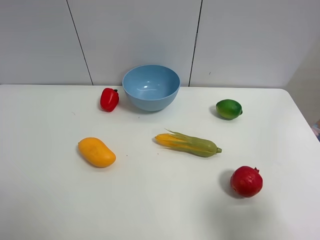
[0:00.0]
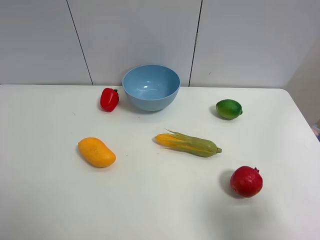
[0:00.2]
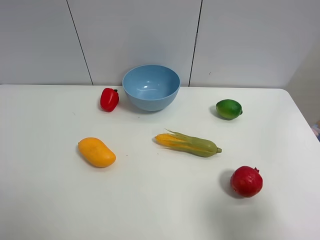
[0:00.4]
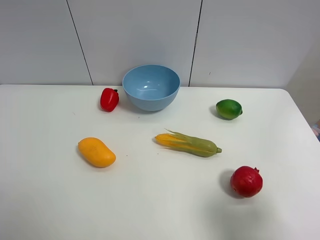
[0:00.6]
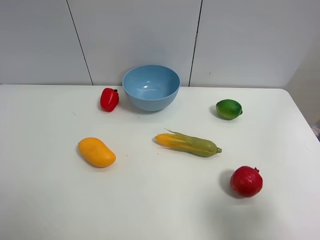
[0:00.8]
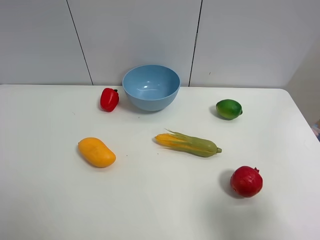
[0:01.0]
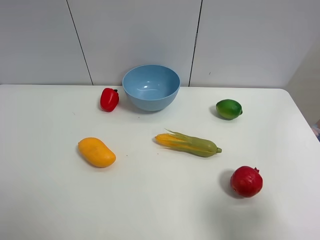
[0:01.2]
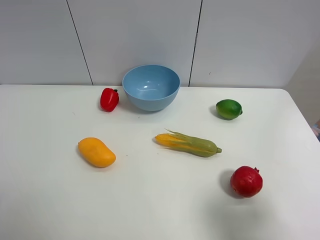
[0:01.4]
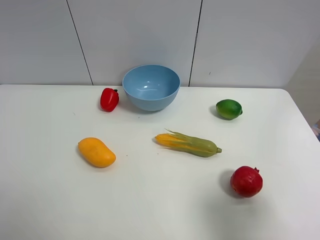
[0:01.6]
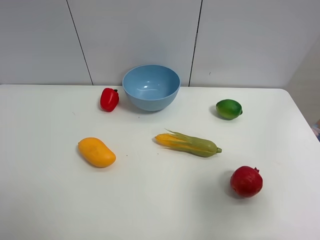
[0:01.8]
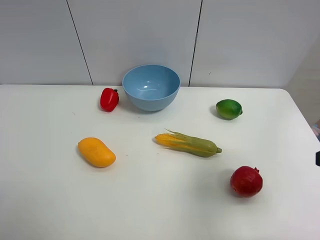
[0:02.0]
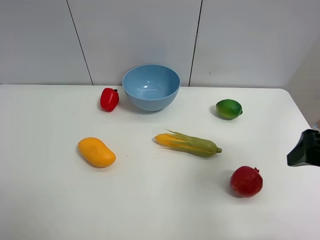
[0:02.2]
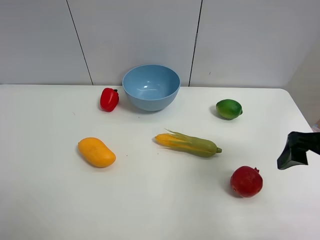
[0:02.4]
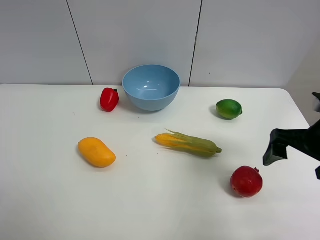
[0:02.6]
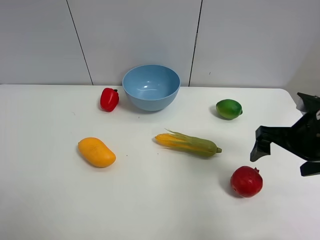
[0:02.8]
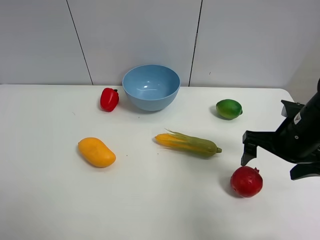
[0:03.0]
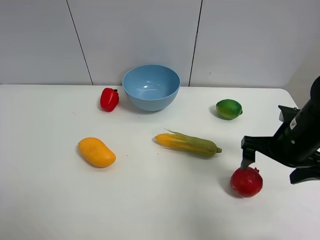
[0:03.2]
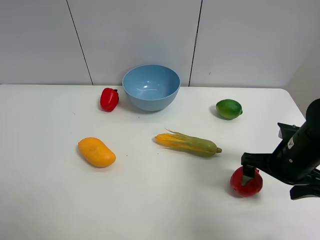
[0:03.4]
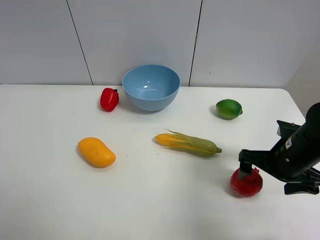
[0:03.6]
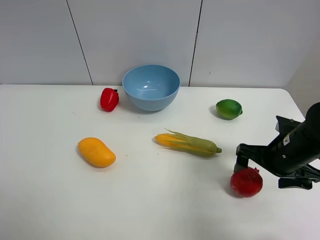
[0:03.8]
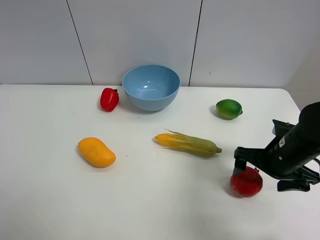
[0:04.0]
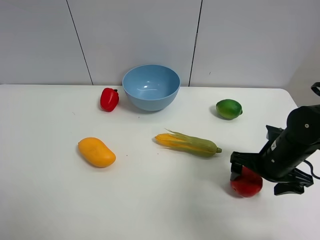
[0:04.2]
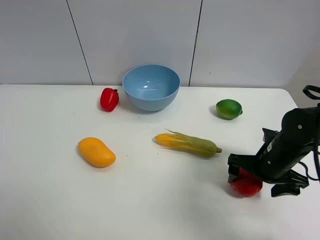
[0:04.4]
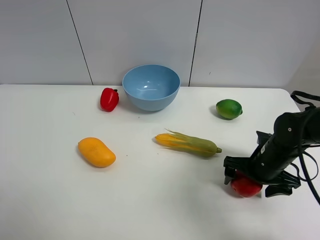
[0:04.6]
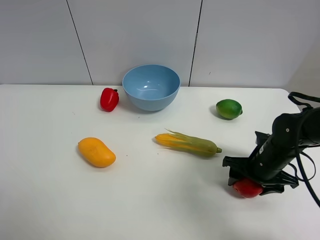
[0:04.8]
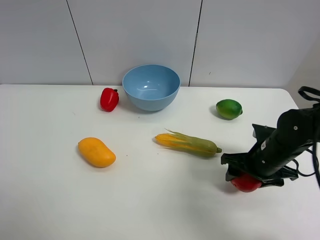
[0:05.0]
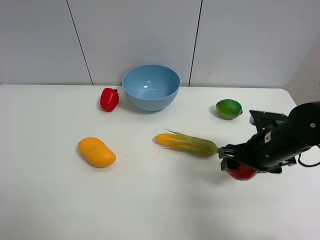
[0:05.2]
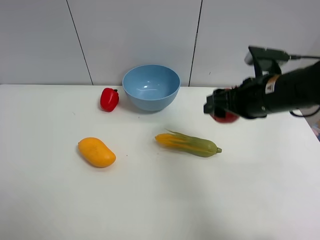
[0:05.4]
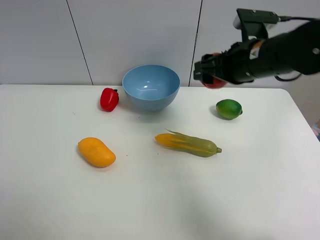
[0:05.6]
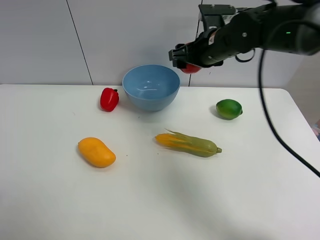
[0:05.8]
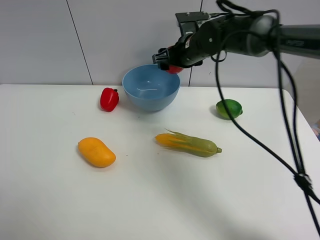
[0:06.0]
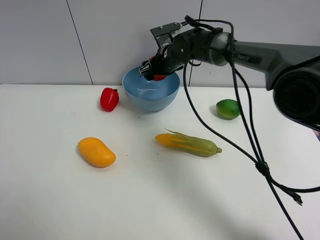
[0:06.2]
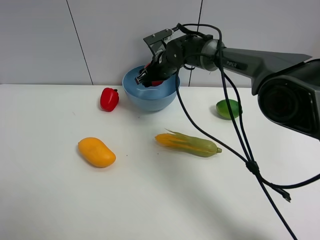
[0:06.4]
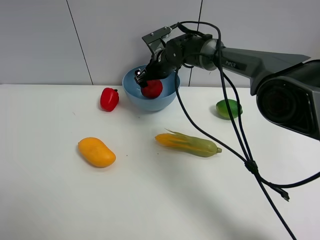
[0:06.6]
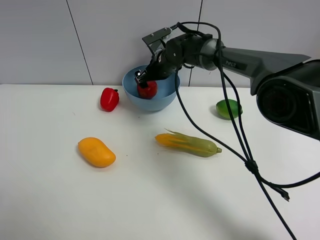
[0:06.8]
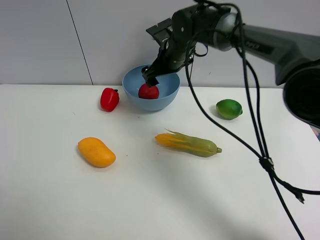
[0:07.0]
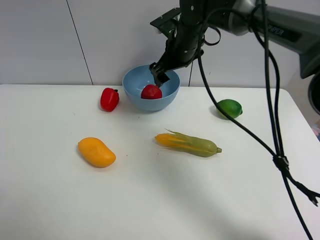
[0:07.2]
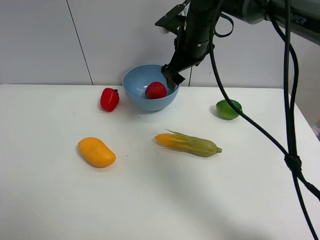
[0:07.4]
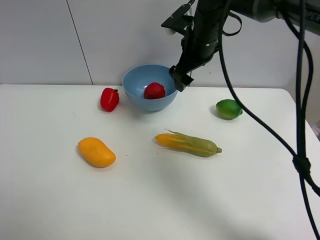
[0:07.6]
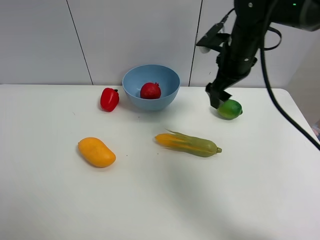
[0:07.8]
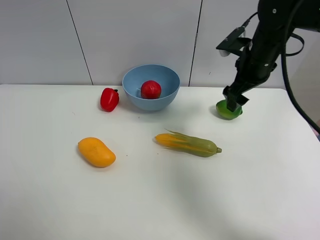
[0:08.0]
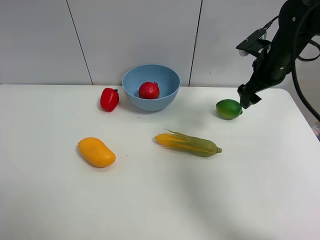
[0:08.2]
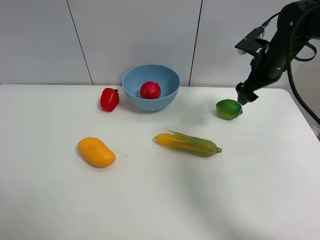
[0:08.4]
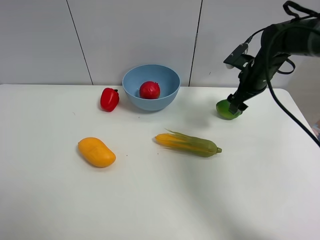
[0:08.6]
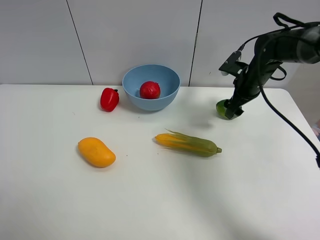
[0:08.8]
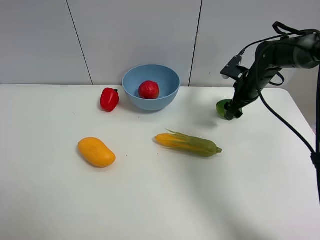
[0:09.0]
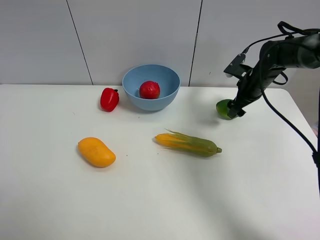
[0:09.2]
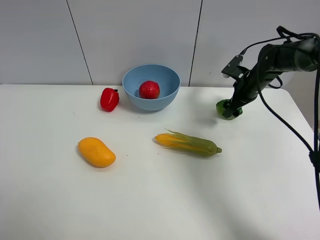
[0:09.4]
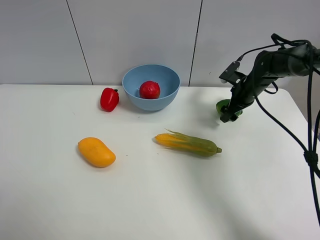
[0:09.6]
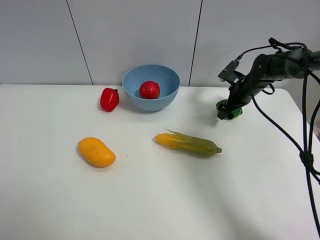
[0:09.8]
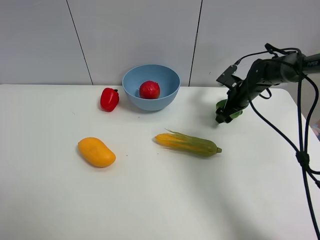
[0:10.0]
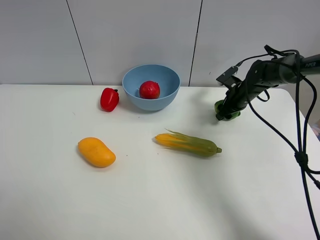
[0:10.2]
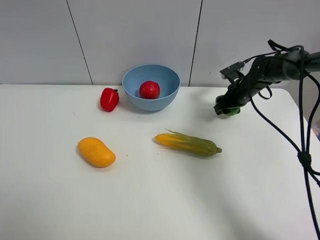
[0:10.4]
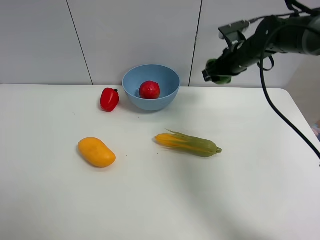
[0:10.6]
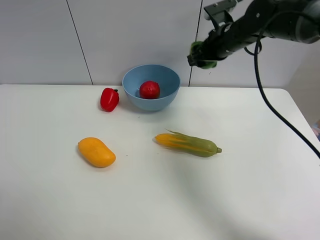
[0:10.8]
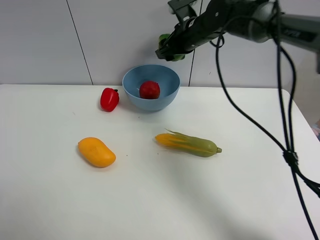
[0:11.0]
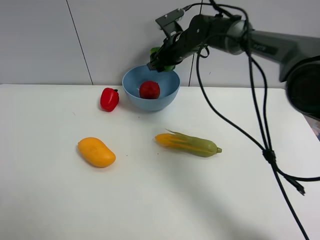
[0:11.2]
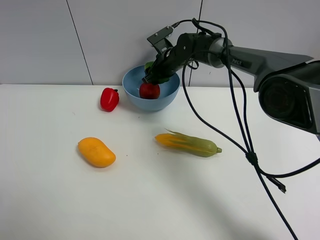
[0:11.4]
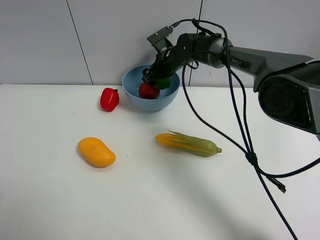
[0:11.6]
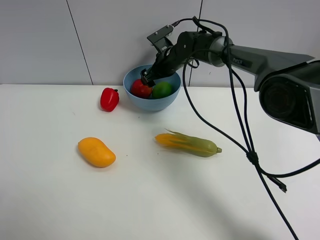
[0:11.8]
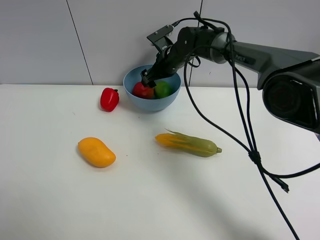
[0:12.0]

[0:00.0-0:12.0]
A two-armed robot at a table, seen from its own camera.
Task of the whole recording: Put the three fruits on the table into a bowl.
Step, 0:00.0 to 0:04.8: Grasp the pomegranate with right gripper.
Step, 0:05.0 to 0:07.0: Place the pomegranate in the blue bowl with right gripper.
Step, 0:07.2 to 0:10.2: Grasp the green lemon with right gripper.
0:01.6 to 0:03.0: The right gripper goes about 20 cm forward.
0:03.0 to 0:04.4: The right gripper travels downward by about 10 cm.
0:04.4 to 0:06.0: The right gripper moves forward, to the left and upward, some 30 cm, and closes its fingers.
0:06.0 to 0:07.6: The right gripper travels upward and backward by about 10 cm, and opens up.
0:07.6 to 0:09.0: The right gripper is displaced to the right and downward by roughly 20 cm.
0:09.0 to 0:10.4: The right gripper closes up.
0:10.4 to 0:12.0: The right gripper is displaced to the left by about 20 cm, and opens its fingers.

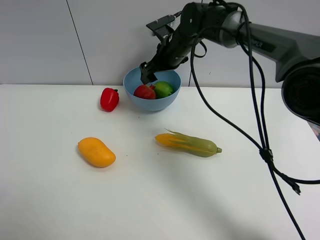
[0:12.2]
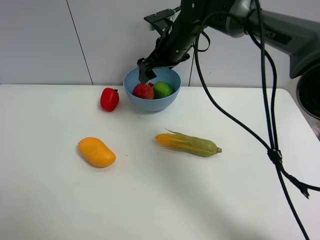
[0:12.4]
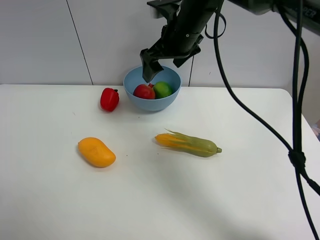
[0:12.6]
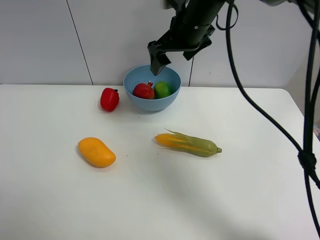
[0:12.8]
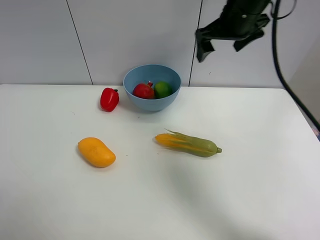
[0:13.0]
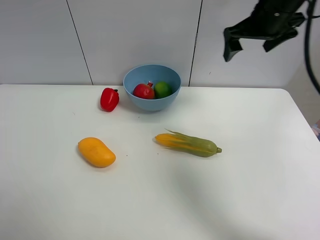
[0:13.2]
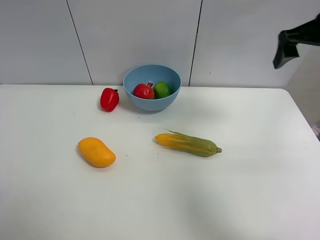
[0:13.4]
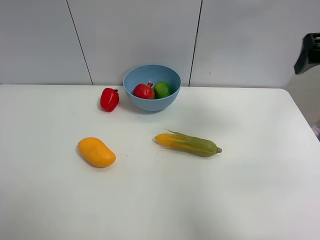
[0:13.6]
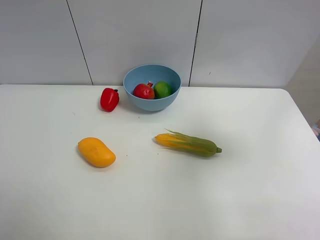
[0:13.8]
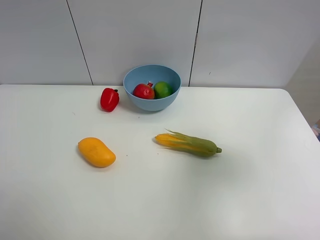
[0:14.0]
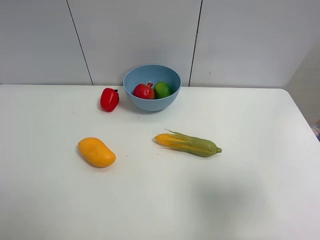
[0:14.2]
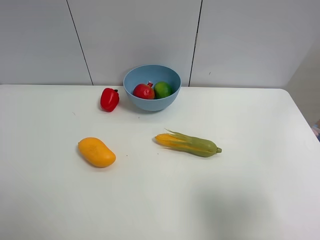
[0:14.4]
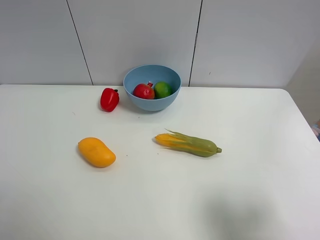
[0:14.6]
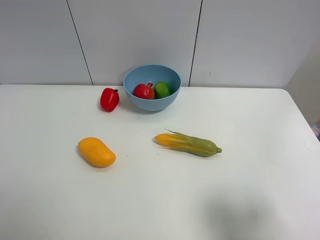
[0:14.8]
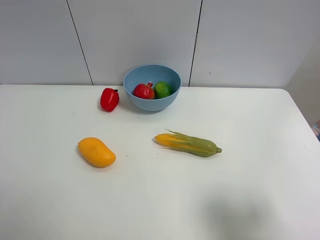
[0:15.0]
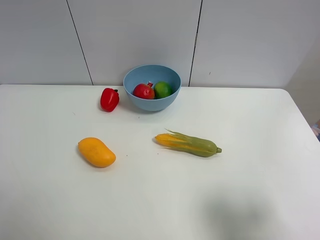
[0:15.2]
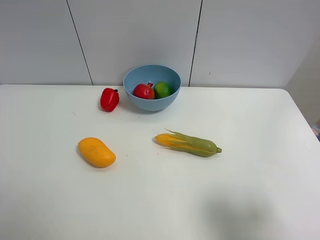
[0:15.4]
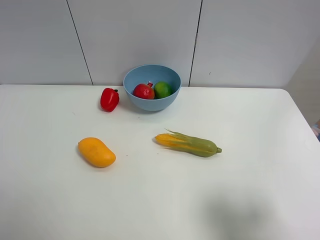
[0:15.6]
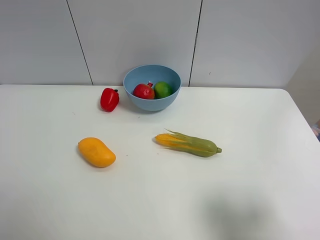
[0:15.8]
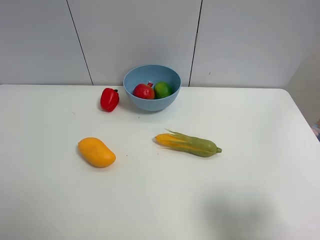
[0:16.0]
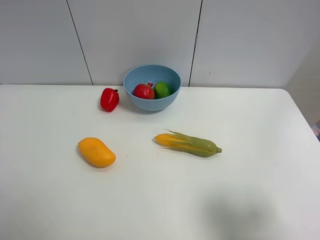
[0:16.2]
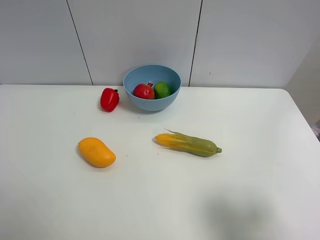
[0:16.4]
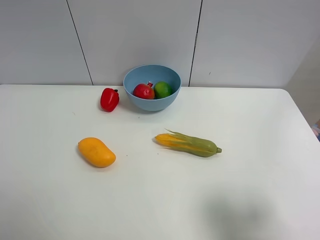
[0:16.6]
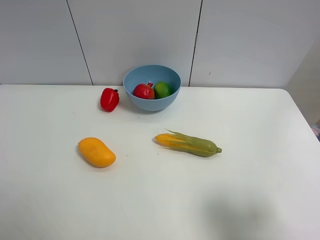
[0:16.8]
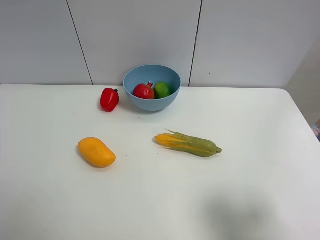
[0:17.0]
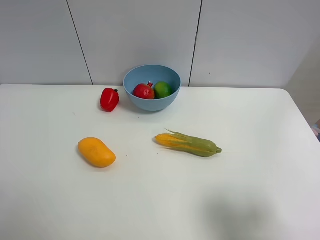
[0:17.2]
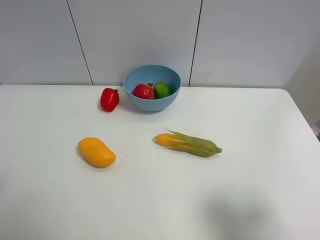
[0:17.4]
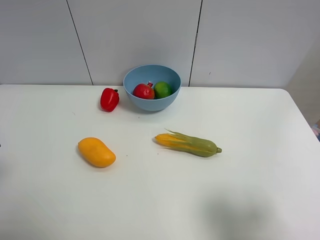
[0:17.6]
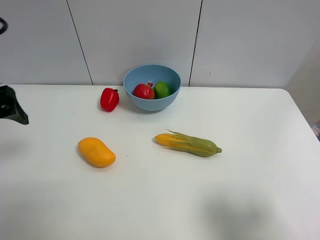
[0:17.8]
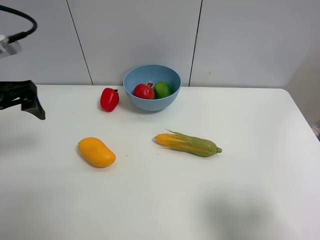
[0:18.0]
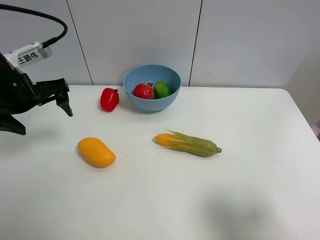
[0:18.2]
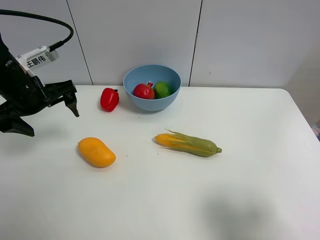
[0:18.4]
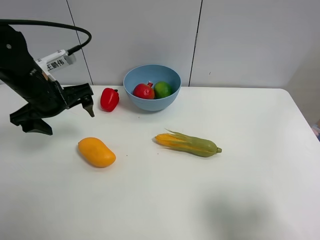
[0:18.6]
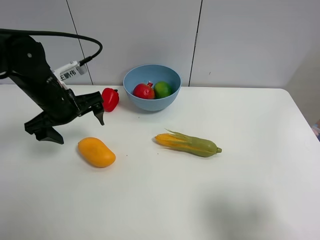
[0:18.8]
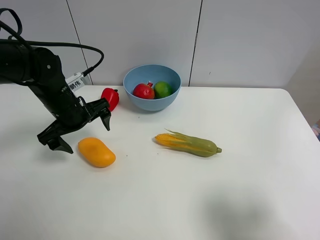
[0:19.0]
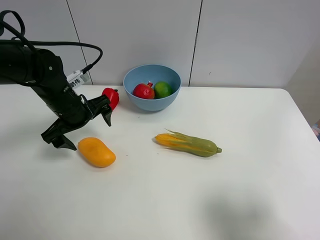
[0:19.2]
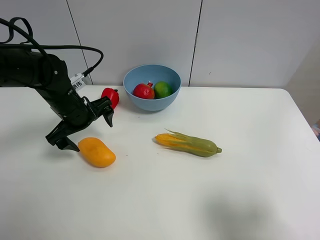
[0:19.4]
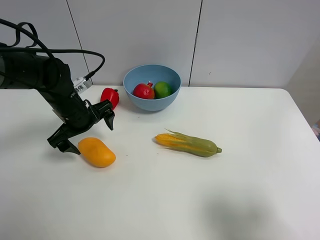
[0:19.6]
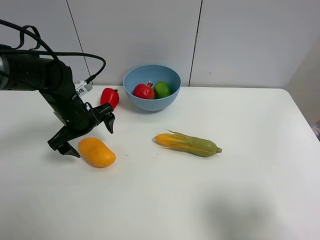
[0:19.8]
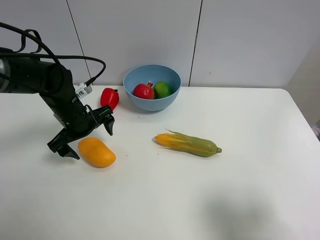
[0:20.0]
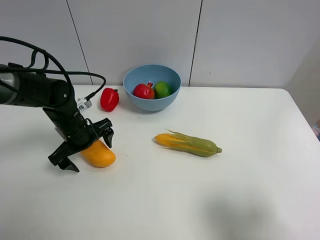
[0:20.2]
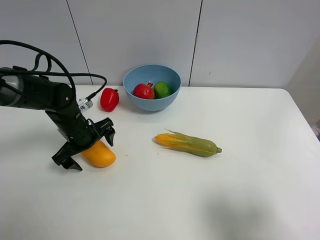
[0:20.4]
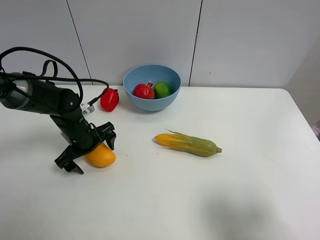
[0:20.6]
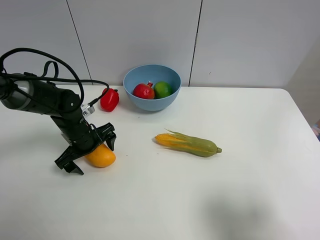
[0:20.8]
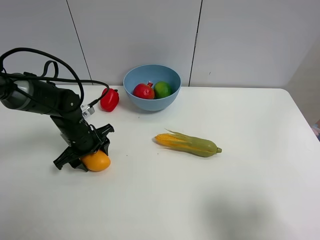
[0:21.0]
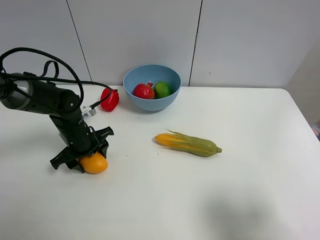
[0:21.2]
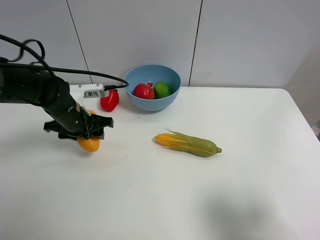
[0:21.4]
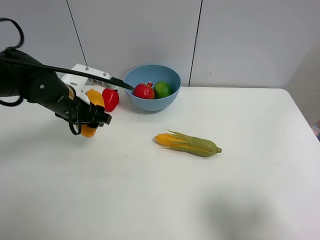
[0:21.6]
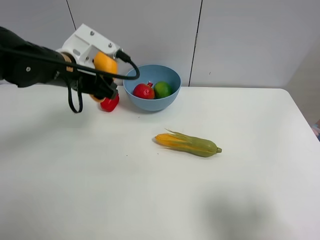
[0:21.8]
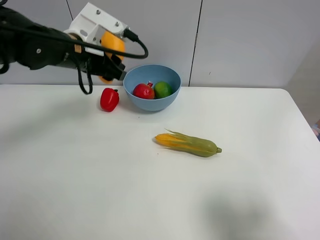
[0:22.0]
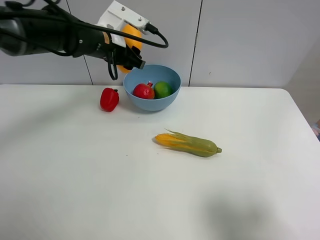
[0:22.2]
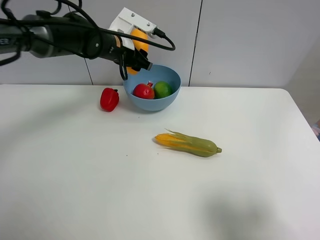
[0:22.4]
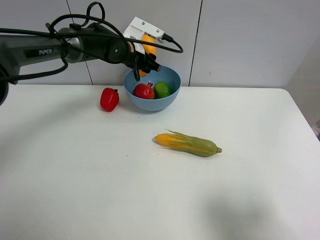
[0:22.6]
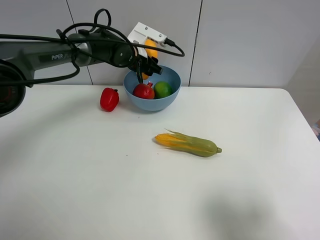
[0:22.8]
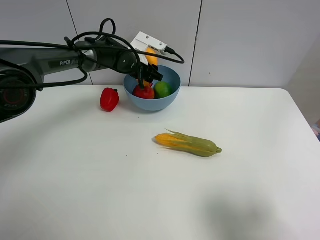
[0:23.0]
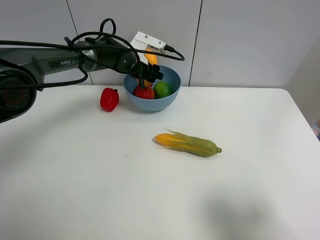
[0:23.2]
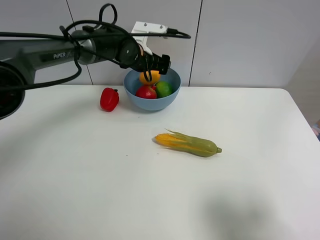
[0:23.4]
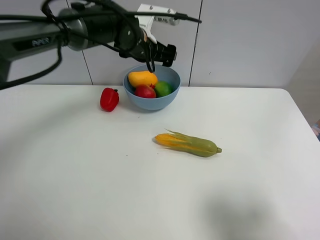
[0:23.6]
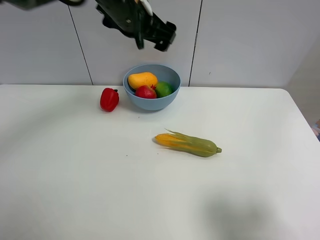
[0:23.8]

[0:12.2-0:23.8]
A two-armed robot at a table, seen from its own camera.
Task of the whole recording: Put the three fruits on the table into a bowl.
Step, 0:12.2 to 0:21.0: Grasp the mango with left gripper.
Step, 0:21.2 to 0:23.6: Place the mango in the blue bowl with left gripper.
0:12.2 to 0:13.6: The right gripper travels to the right, backward and upward by roughly 35 cm.
0:13.6 to 0:15.0: The right gripper shifts some 30 cm backward and downward.
0:15.0 to 0:16.6: Neither gripper changes place.
0:16.6 to 0:18.0: The left gripper moves forward, approximately 25 cm.
0:18.0 to 0:19.4: The left gripper heads downward, to the right and forward, covering roughly 15 cm.
0:19.4 to 0:21.0: The left gripper goes roughly 10 cm downward, and closes.
0:21.0 to 0:22.4: The left gripper shifts roughly 20 cm forward, upward and to the right.
0:22.4 to 0:23.8: The left gripper moves upward and backward, approximately 15 cm, and opens up.
